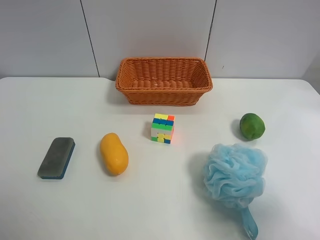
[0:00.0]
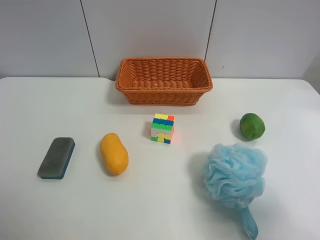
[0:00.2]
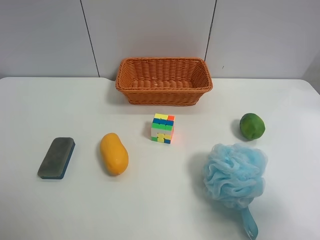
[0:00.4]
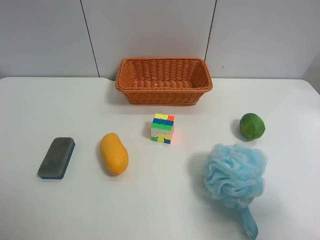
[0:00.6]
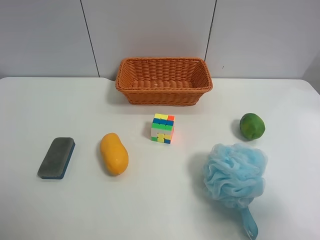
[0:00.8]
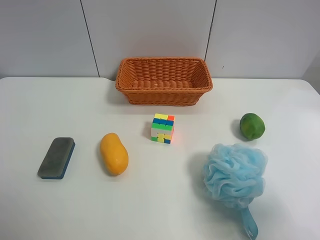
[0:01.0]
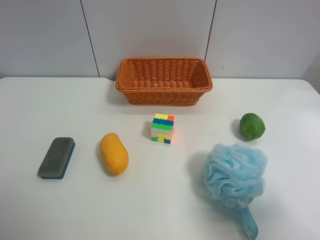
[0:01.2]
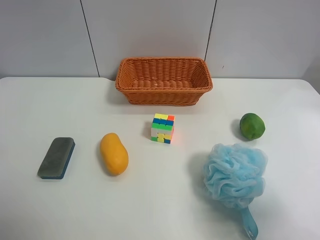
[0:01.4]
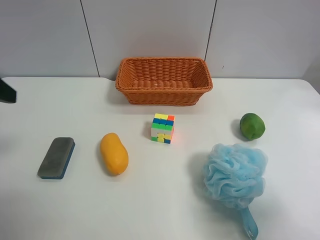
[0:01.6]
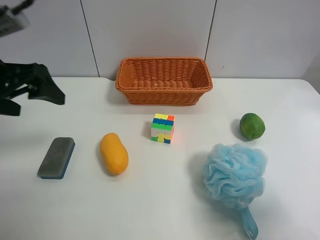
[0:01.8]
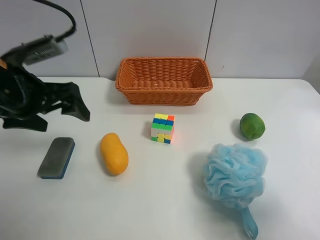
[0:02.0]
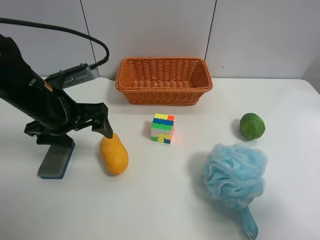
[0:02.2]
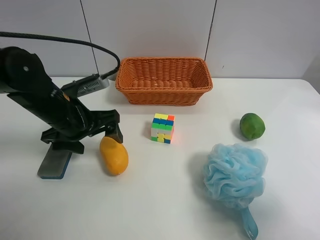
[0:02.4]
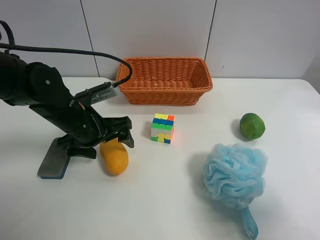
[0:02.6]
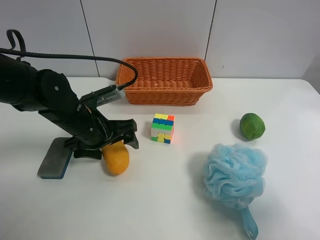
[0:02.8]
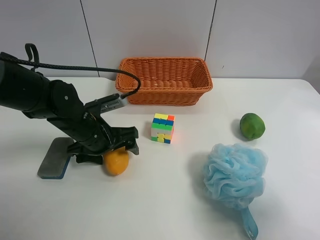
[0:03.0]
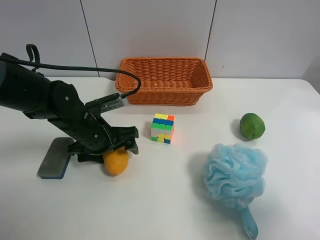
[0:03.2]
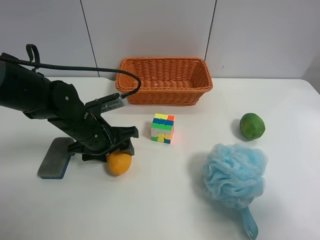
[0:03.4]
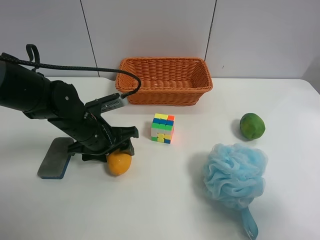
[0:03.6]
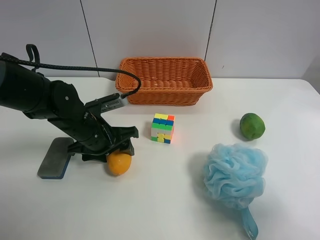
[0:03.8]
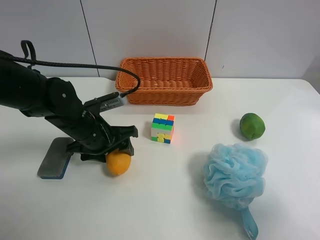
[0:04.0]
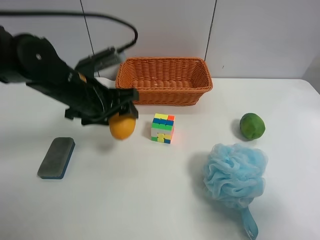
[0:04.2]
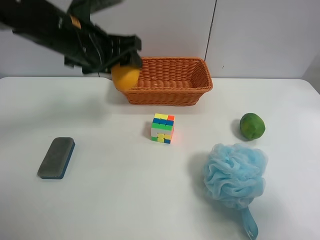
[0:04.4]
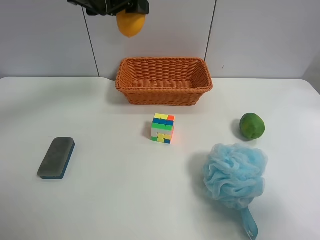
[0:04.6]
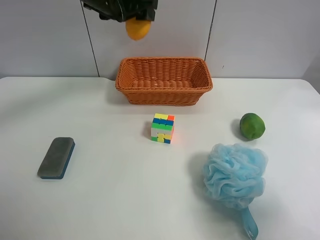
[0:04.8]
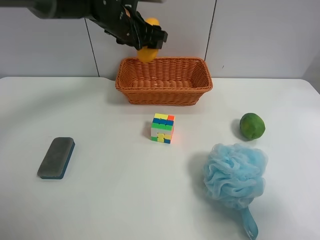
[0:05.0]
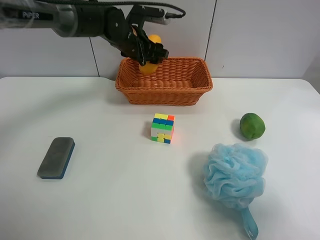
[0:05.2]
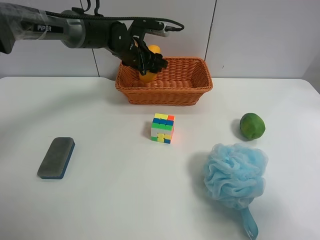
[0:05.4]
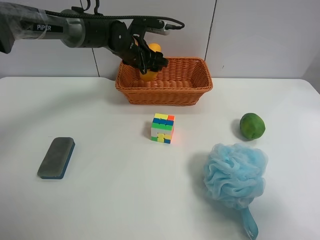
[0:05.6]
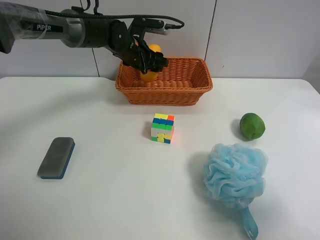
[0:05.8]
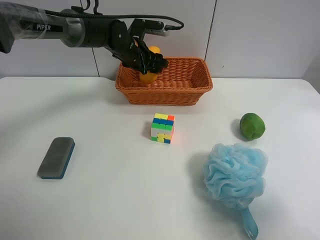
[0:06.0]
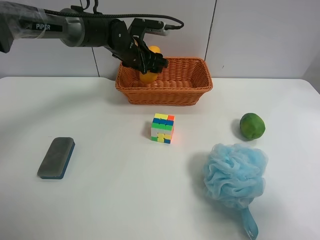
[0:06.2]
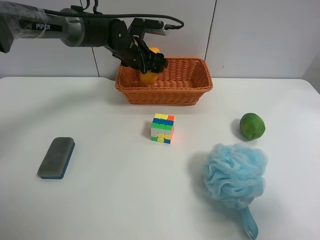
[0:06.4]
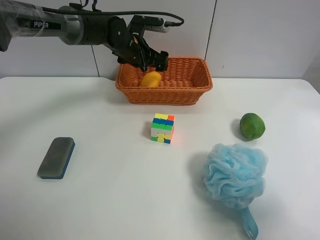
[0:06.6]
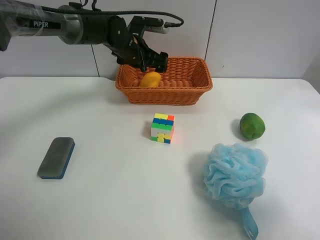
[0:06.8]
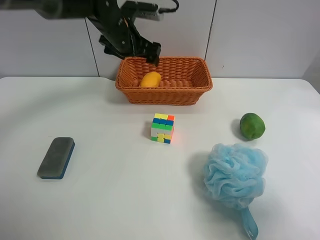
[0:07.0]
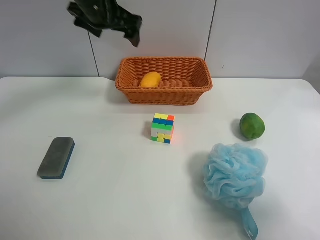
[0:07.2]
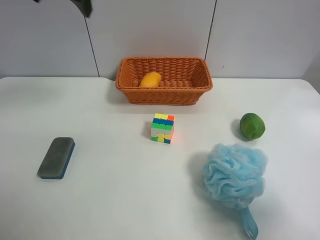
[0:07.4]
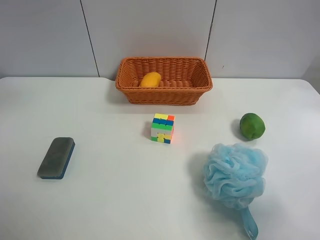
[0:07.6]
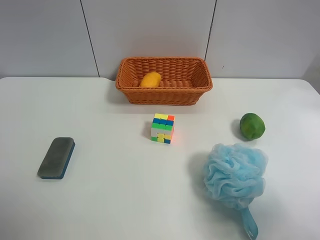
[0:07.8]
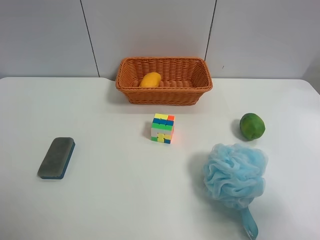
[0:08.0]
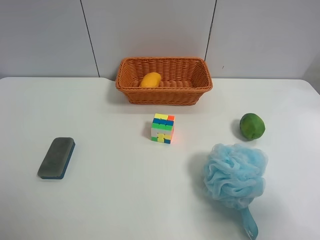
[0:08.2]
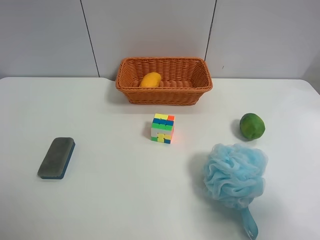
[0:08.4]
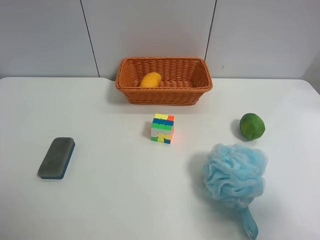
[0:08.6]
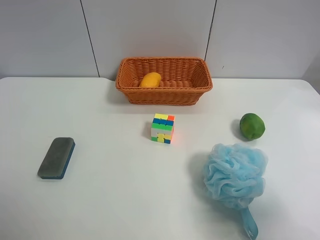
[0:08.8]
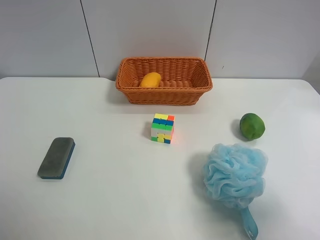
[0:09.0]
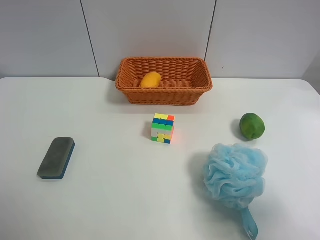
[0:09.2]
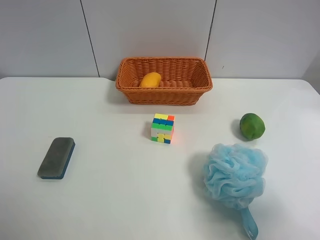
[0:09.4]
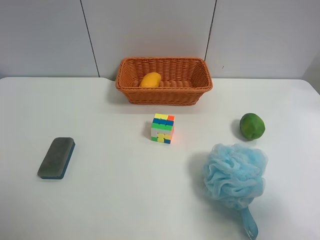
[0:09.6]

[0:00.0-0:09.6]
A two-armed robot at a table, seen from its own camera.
Task of the whole recording: use the left gripper to grab items from the table and place them in the basket.
Step, 0:00.0 to 0:03.4: Grasp the mango with the left gripper.
Step, 0:03.6 to 0:06.6: Place the mango into the basket with the left gripper.
0:01.6 to 0:03.2: The left gripper travels downward, to the right and forward by about 25 cm.
0:03.2 to 0:04.8: The left gripper moves upward and forward, approximately 25 cm, and closes its fingers.
0:04.8 to 0:06.4: The left gripper shifts approximately 15 cm downward and forward, and opens.
0:06.4 to 0:08.0: The left gripper shifts approximately 50 cm backward, upward and to the left, and opens its fingers.
